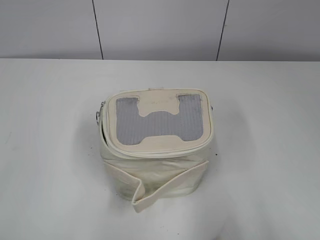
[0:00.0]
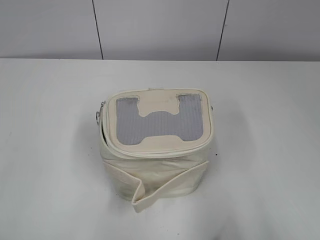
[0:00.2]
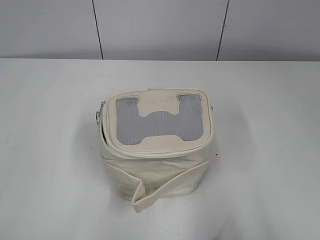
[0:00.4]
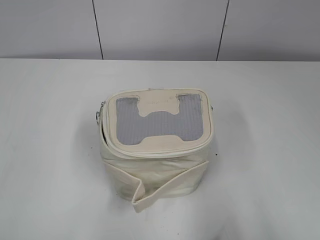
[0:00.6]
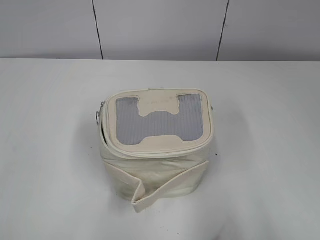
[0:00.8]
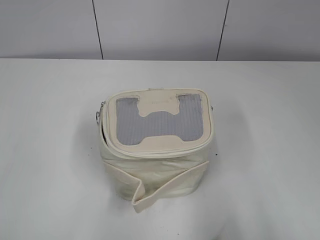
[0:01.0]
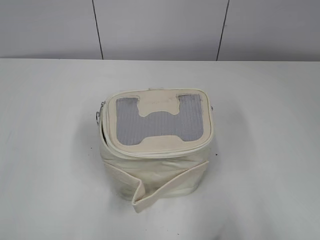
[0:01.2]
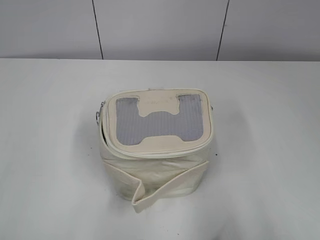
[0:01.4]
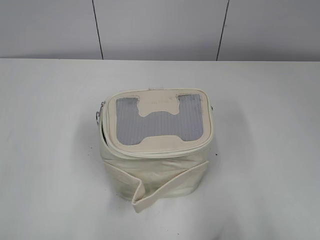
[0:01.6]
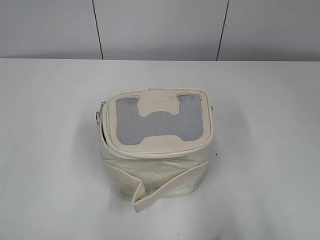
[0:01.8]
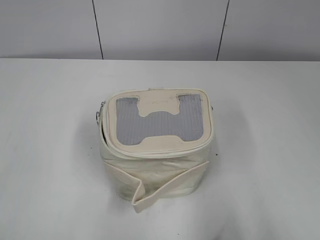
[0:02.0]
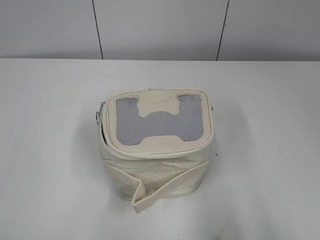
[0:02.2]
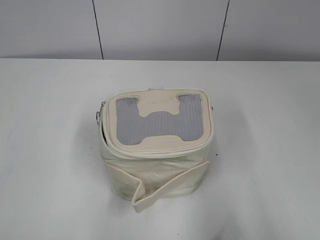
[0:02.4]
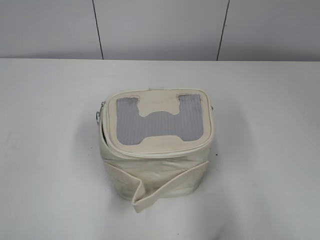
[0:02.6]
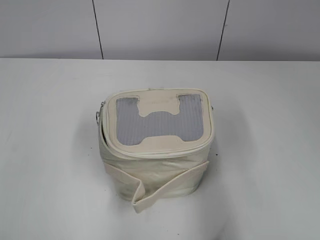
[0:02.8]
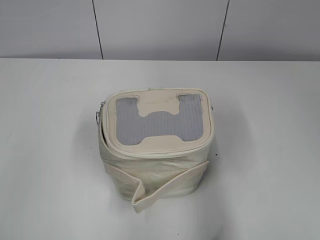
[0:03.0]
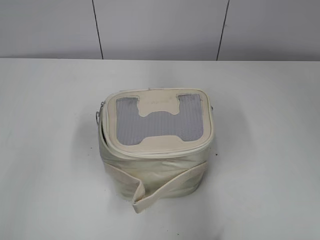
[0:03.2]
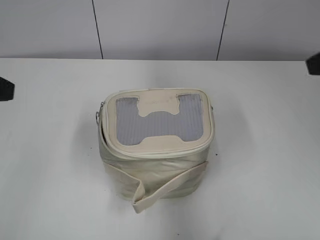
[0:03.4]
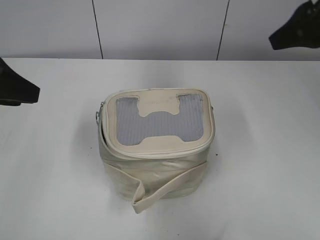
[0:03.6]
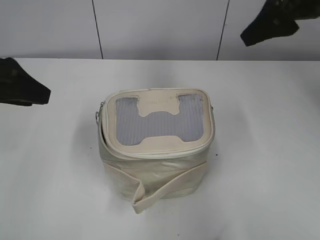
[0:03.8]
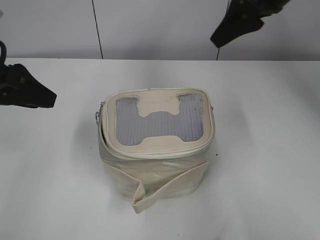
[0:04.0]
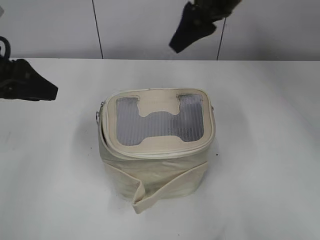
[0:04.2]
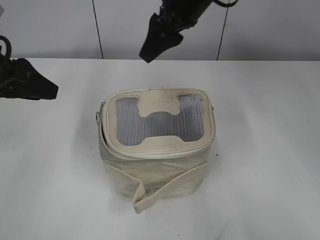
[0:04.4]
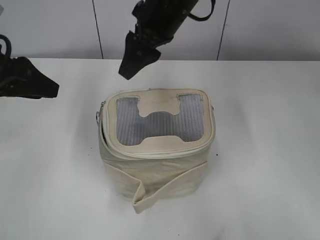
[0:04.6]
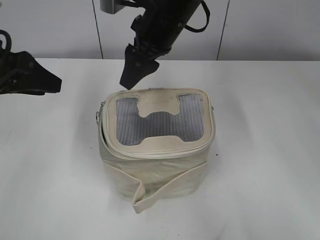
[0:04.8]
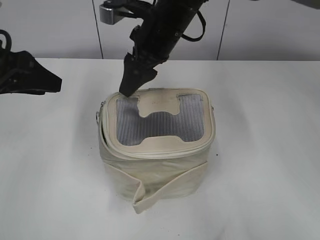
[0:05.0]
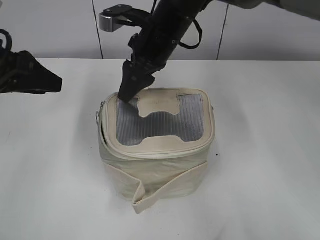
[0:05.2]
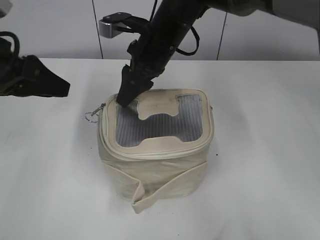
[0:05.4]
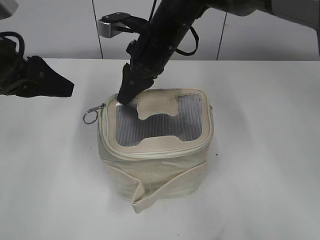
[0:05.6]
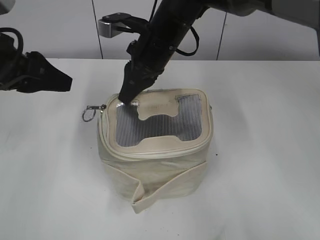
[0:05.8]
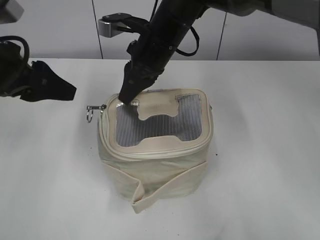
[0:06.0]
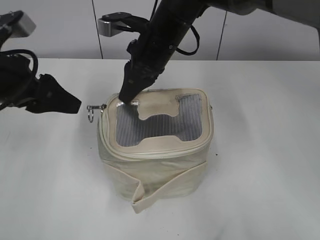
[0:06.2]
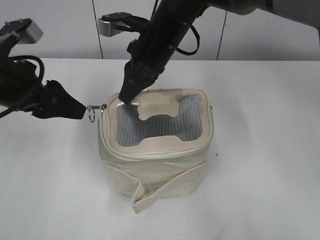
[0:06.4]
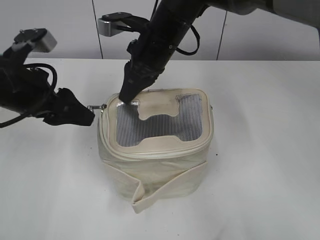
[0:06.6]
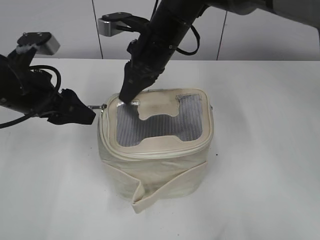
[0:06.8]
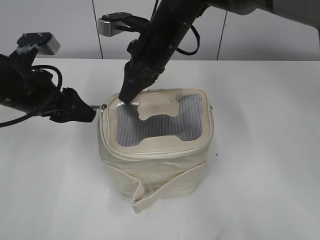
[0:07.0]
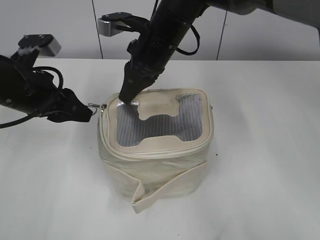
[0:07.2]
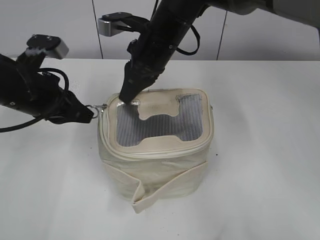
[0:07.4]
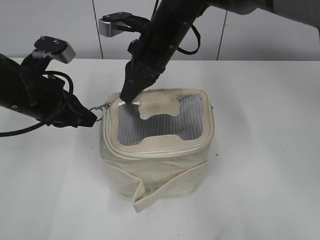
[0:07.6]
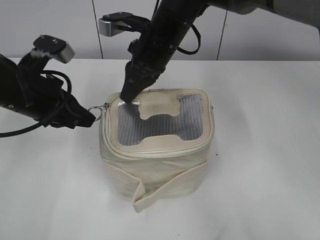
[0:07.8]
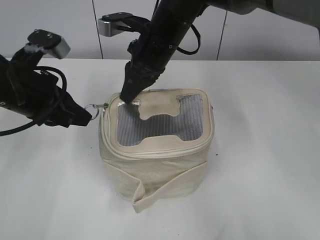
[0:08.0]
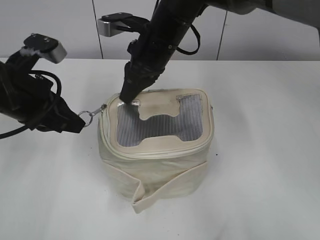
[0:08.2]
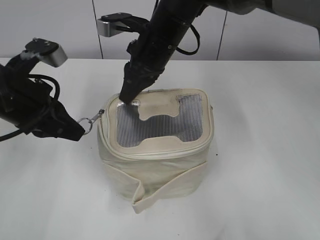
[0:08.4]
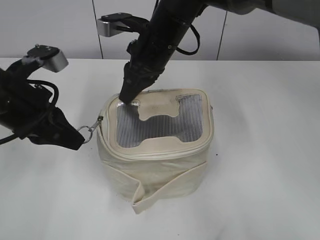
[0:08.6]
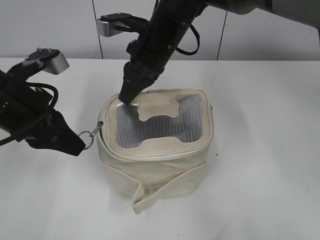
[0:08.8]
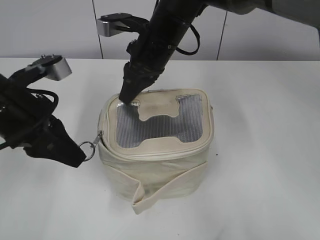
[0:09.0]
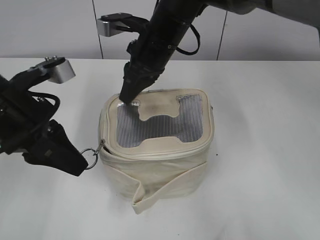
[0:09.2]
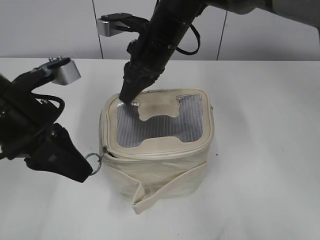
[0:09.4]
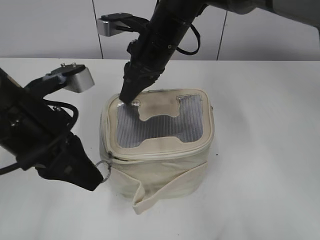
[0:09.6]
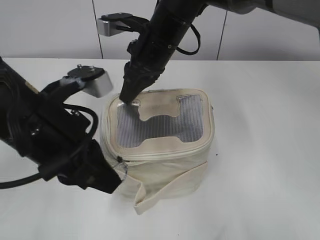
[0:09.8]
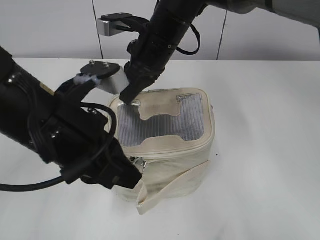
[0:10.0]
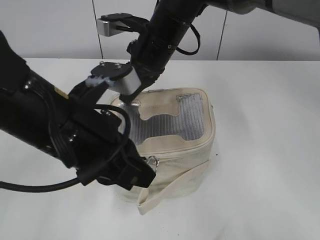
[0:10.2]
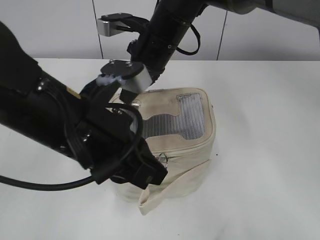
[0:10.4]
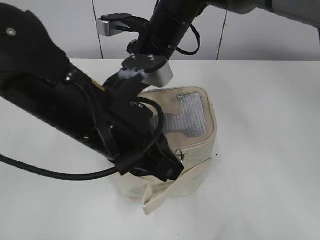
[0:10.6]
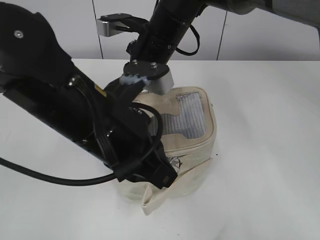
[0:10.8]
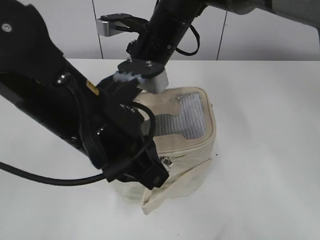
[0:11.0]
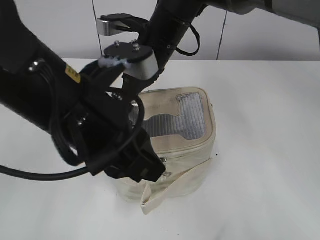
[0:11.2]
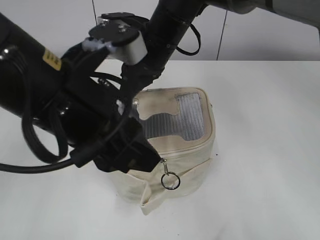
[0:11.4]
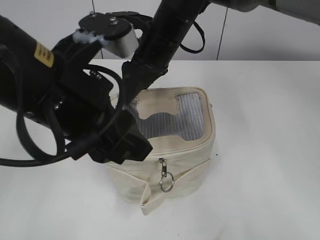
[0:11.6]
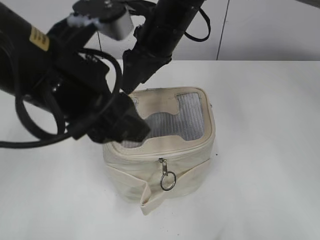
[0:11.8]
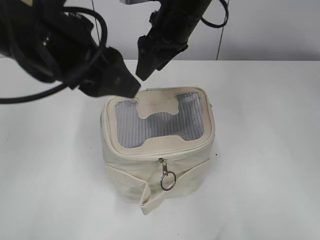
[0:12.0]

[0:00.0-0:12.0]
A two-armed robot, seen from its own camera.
Step, 0:00.0 to 0:11.2: Zip up the bag with your left hand.
Step, 0:11.4 to 0:11.6: Hold the bag with your right hand.
0:01.6 to 0:03.0: The two grippers go roughly 10 cm forward.
0:03.0 to 0:04.4: The left gripper moves forward, roughly 15 cm. The right gripper goes roughly 40 cm forward and to the left.
0:04.4 to 0:06.0: The right gripper heads downward, covering approximately 10 cm, and closes up.
0:06.0 to 0:07.6: The left gripper goes roughly 5 cm downward, and closes its fingers.
0:09.0 to 0:10.4: The left gripper moves to the right and backward, approximately 10 cm.
0:10.4 to 0:12.0: The right gripper moves roughly 5 cm, and opens its fingers. The left gripper goes some 10 cm upward, and opens its fingers.

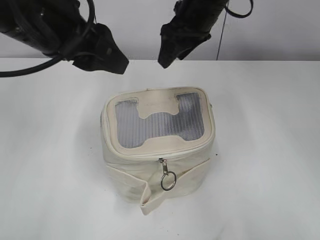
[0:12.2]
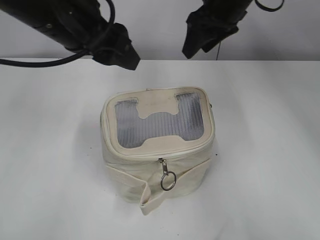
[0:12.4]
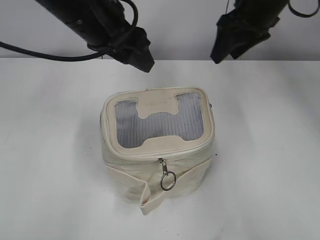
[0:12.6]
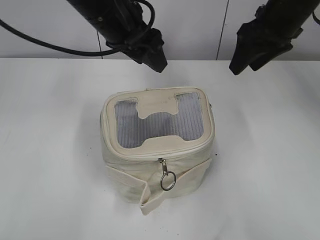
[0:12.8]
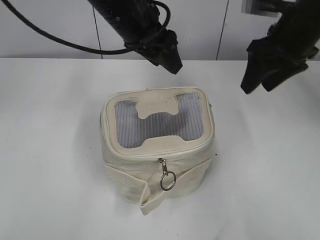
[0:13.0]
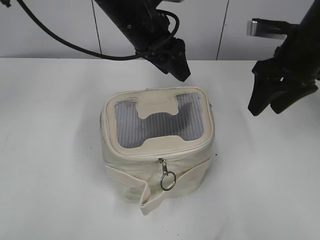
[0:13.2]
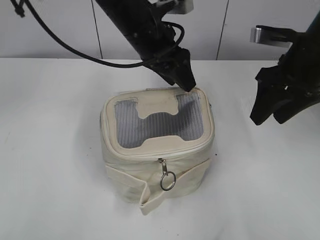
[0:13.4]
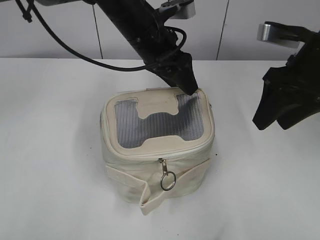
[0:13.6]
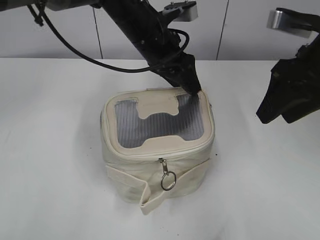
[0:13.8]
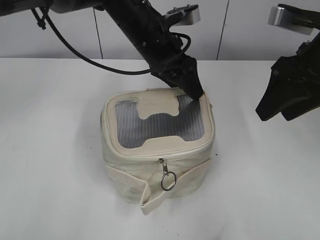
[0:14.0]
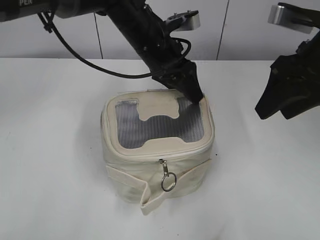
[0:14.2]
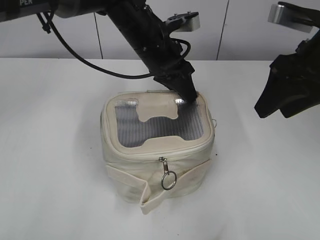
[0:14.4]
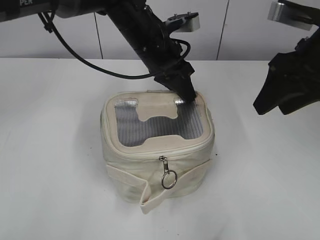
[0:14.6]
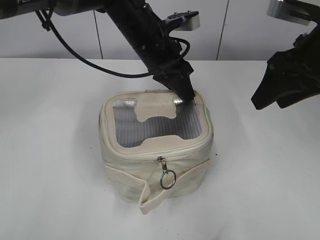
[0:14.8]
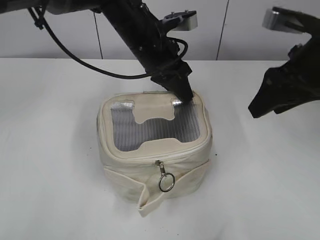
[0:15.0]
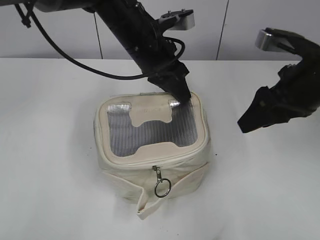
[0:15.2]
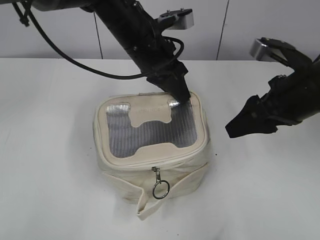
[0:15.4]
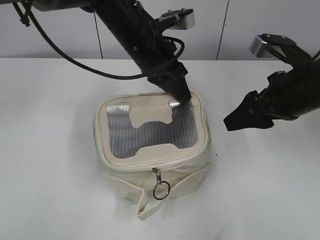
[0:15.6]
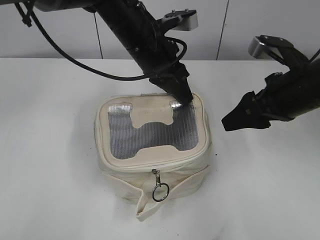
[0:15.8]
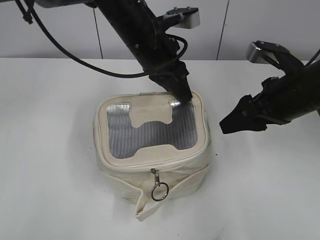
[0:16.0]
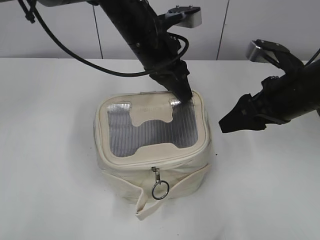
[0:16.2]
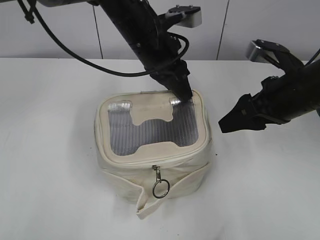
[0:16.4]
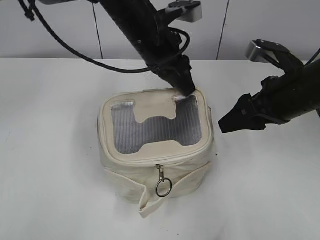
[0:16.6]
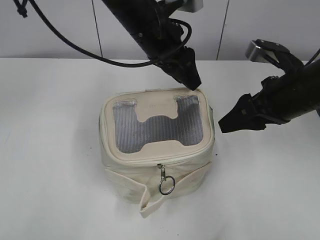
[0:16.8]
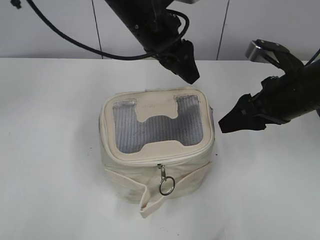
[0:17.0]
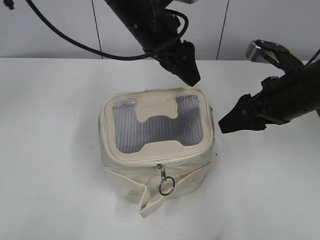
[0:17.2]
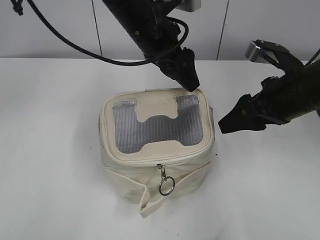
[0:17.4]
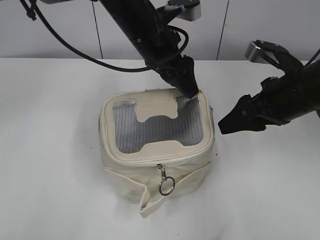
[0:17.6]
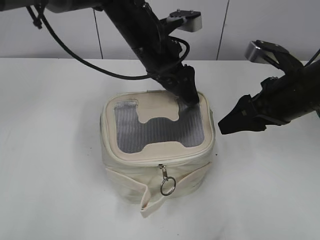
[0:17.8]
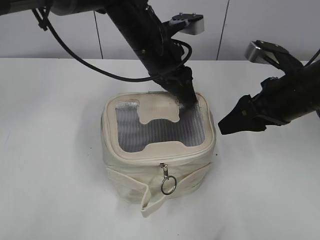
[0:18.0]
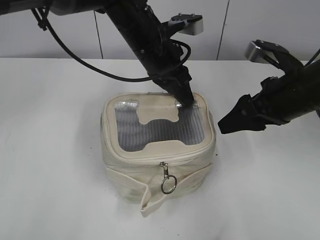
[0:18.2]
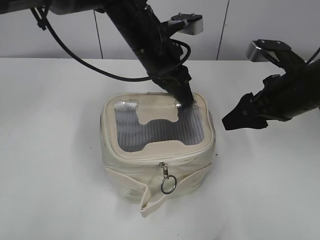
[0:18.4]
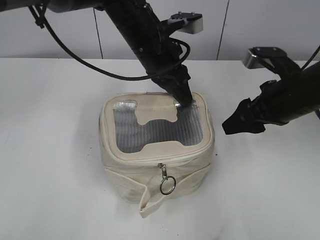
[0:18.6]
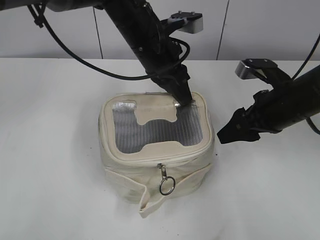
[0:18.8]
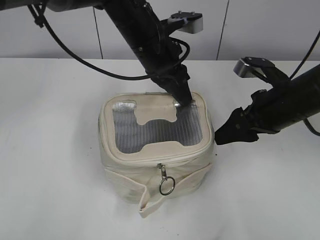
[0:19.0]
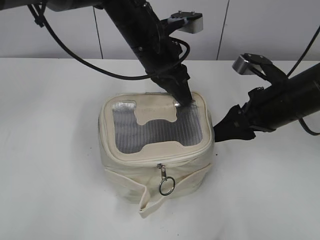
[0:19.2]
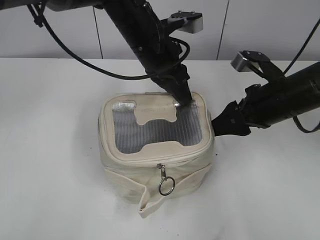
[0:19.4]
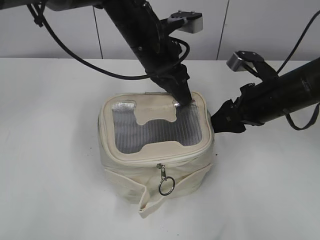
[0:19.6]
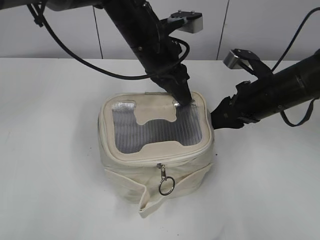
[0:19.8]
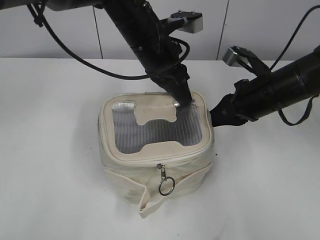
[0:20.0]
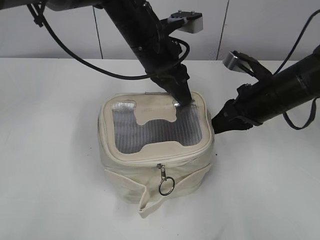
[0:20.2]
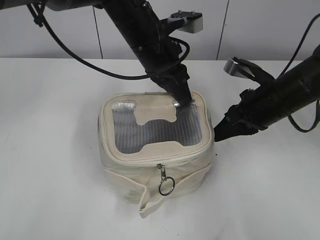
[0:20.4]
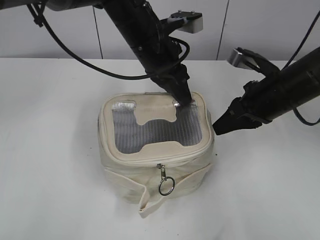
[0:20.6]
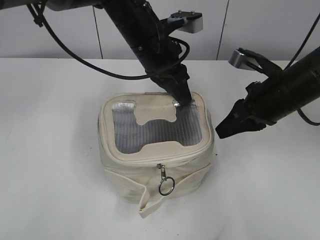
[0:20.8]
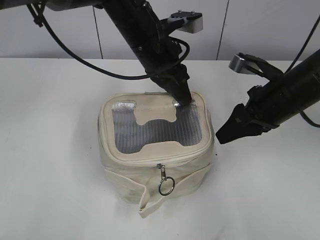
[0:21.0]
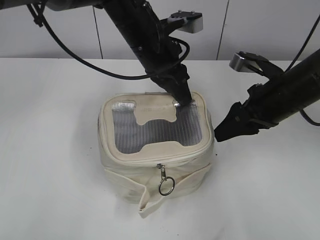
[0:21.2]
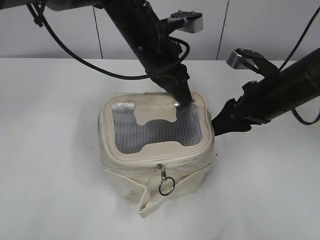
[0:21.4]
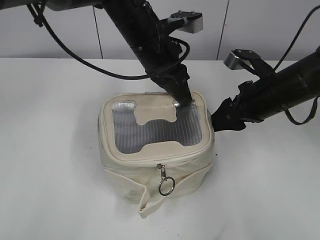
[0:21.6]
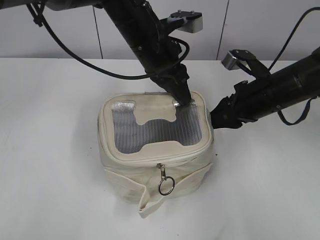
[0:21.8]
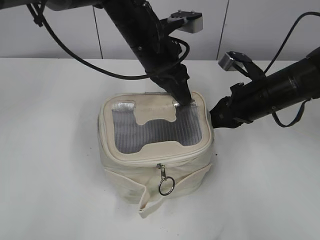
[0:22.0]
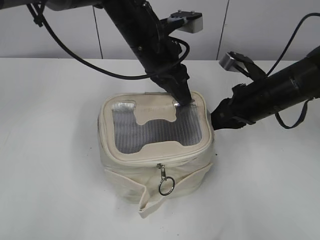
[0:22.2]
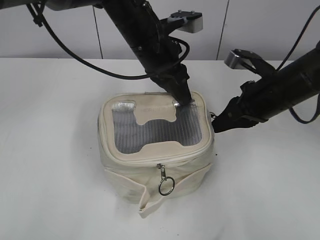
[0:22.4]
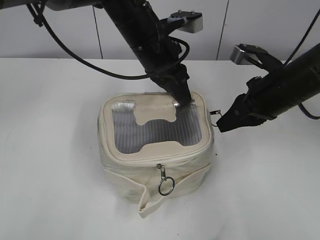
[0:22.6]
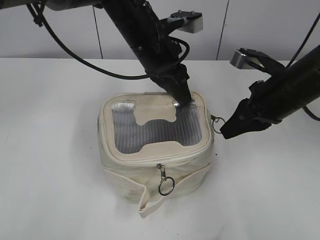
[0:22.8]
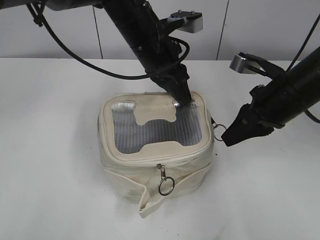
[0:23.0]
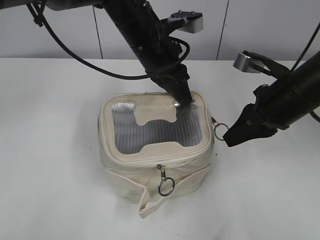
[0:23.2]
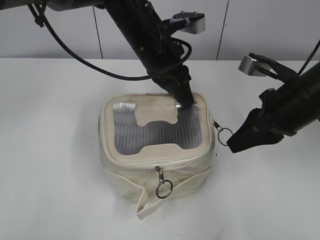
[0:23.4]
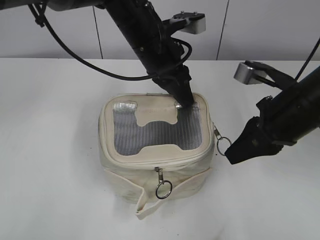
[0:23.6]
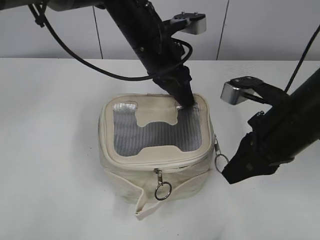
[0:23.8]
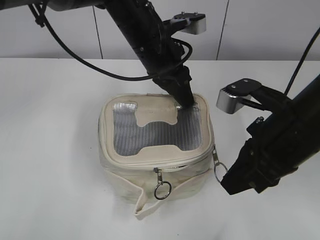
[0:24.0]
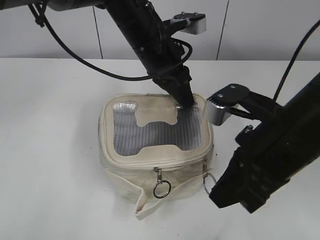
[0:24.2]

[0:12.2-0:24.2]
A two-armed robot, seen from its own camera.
0:12.2 to 0:13.8: The right gripper travels to the right and backward by about 20 cm. The left gripper moves forward, to the right and downward, about 20 cm.
0:13.8 to 0:15.2: The left gripper closes.
0:15.2 to 0:16.6: The grippers stay close to where they were, moving slightly.
0:16.6 to 0:18.2: The left gripper opens and closes again.
0:18.2 to 0:19.8: The right gripper shifts by roughly 5 cm.
0:19.8 to 0:21.2: The right gripper closes and opens again.
0:21.2 to 0:22.6: The right gripper closes.
0:22.6 to 0:24.2: The right gripper travels backward by roughly 10 cm.
